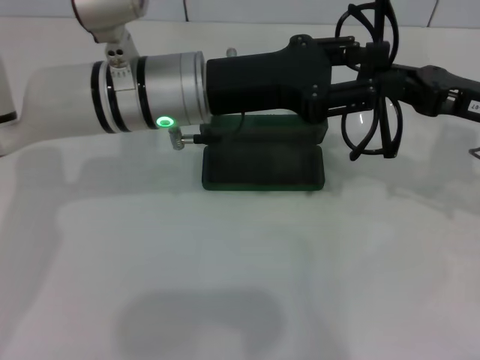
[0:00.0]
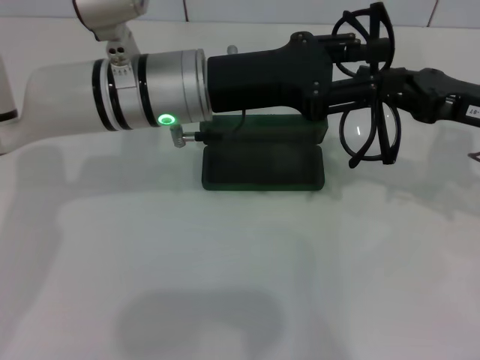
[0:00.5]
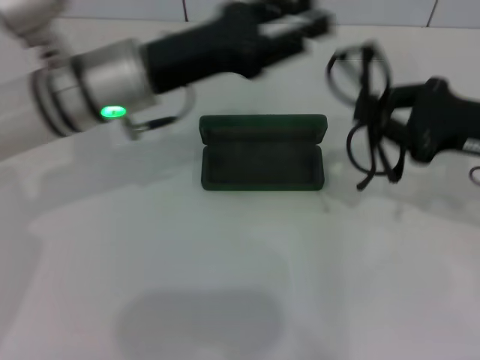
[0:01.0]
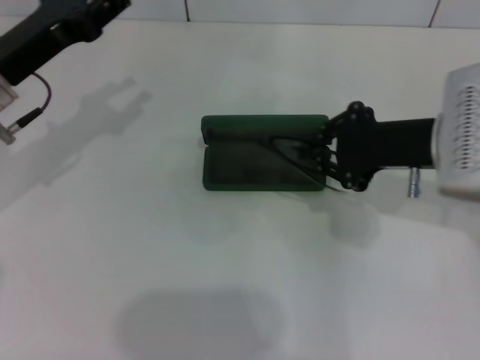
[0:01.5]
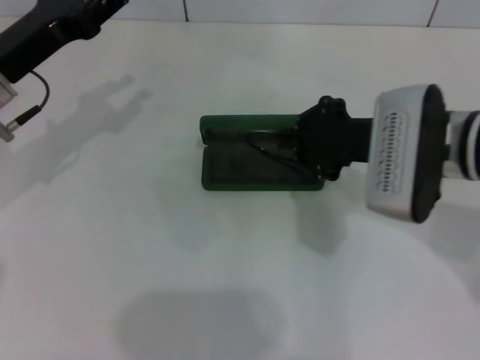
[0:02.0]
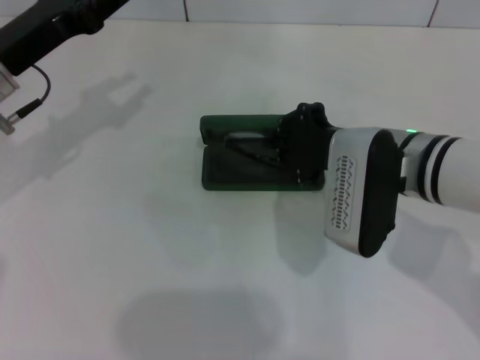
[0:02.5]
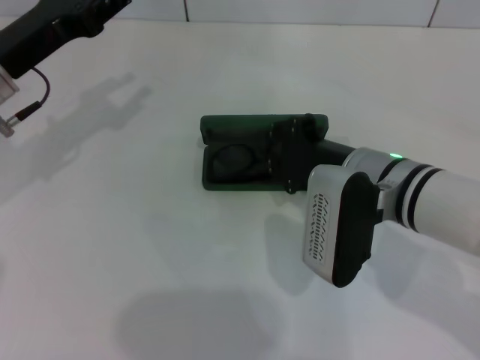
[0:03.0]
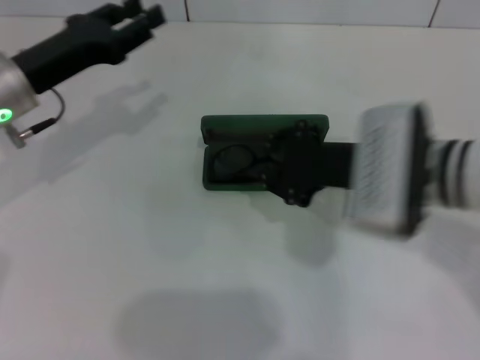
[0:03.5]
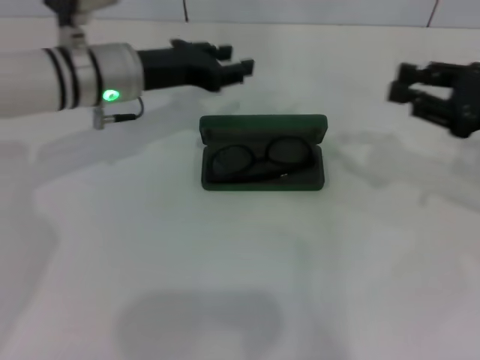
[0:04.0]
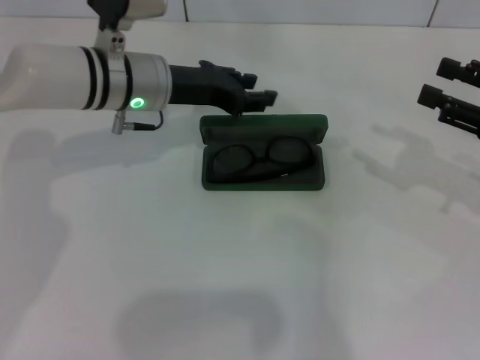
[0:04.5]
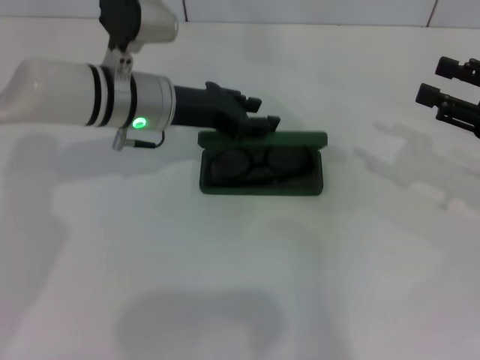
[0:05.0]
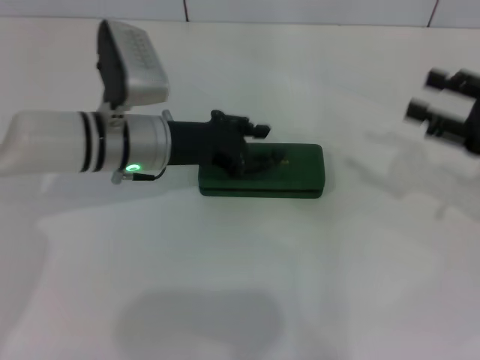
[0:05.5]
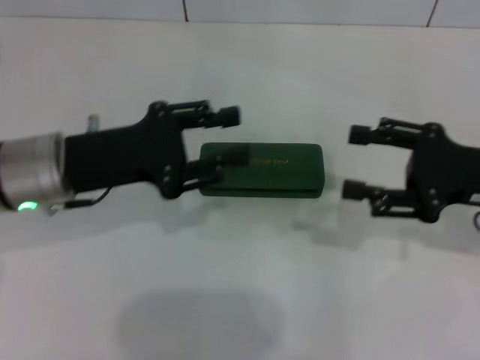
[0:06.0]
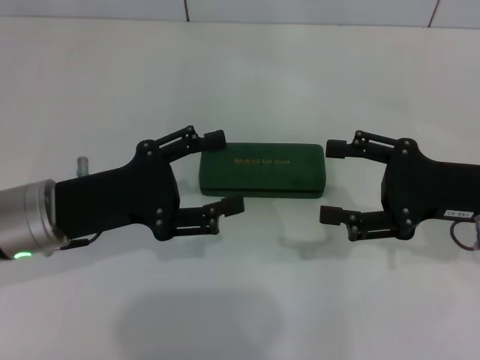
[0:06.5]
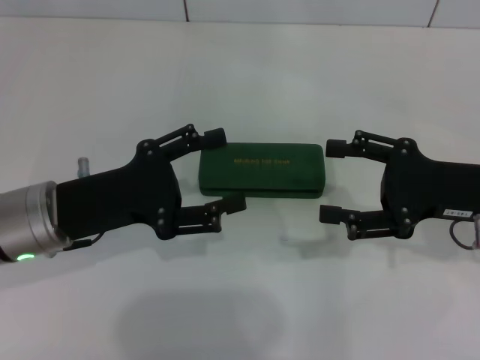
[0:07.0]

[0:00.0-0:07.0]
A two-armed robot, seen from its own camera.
Step, 0:00.0 to 0:03.5: Put the glasses into the case with your right hand.
Step, 0:04.0 to 0:05.0: Close the glasses case with your left hand.
0:00.0 to 0:02.0: Both grippers travel together to the left, roughly 15 cm.
0:03.5 to 0:05.0: The left gripper shifts some 10 cm to the right. The right gripper moves to the right, some 20 cm, and opens.
0:05.0 to 0:07.0: The left gripper travels backward and to the left by some 15 cm, and opens up, while the right gripper heads to the left, covering approximately 10 cm.

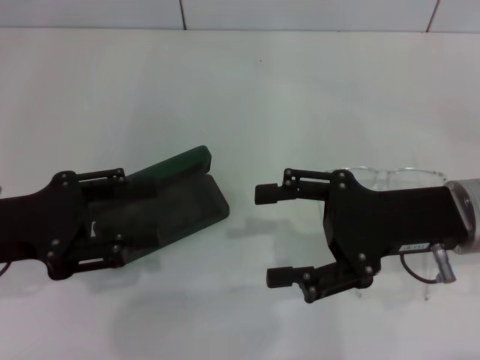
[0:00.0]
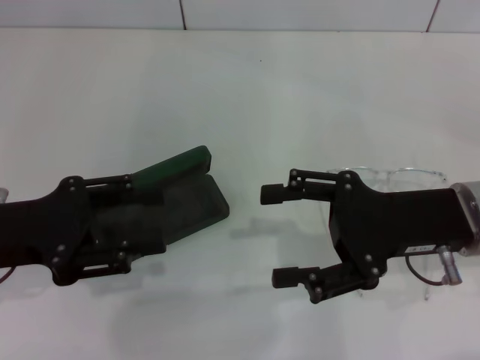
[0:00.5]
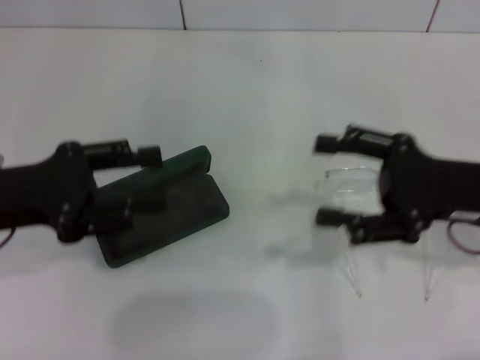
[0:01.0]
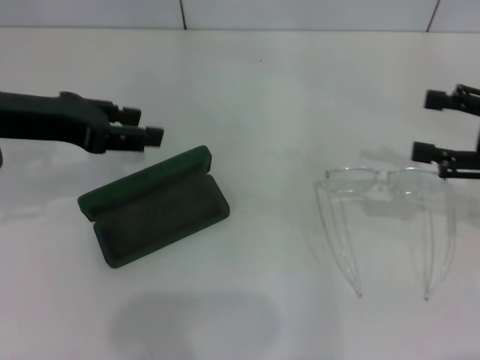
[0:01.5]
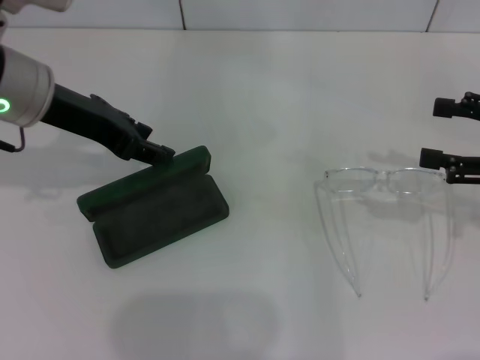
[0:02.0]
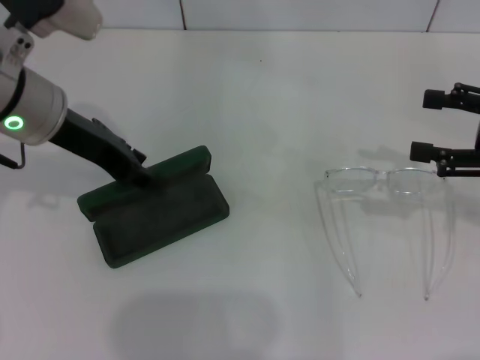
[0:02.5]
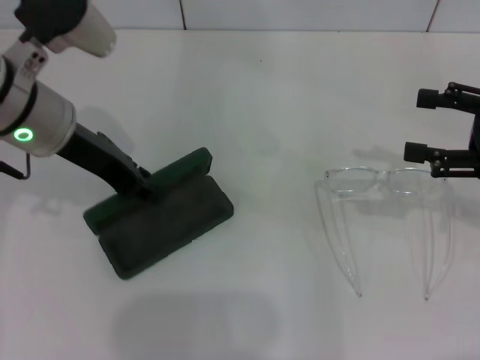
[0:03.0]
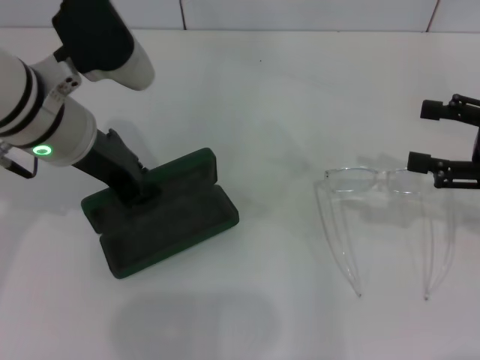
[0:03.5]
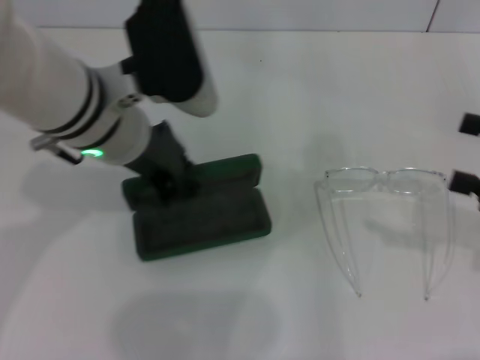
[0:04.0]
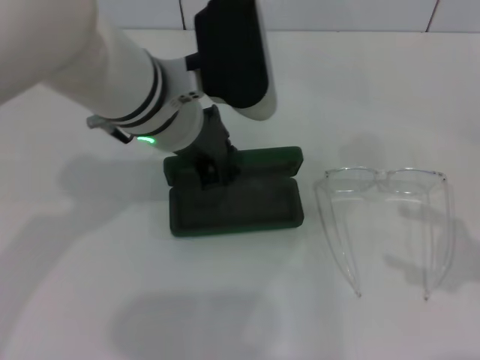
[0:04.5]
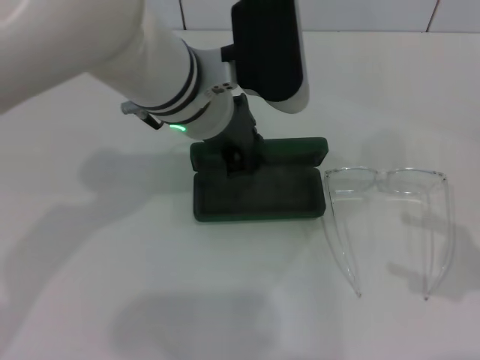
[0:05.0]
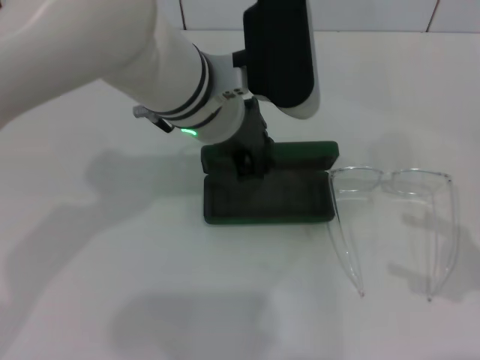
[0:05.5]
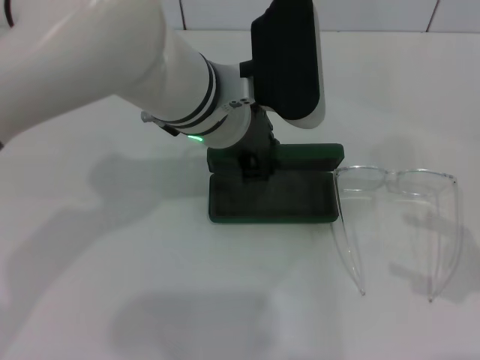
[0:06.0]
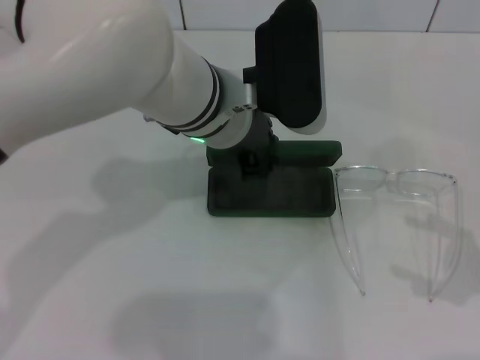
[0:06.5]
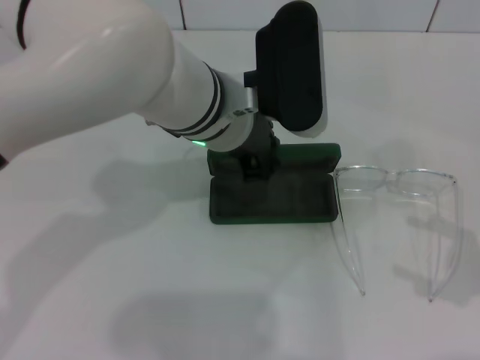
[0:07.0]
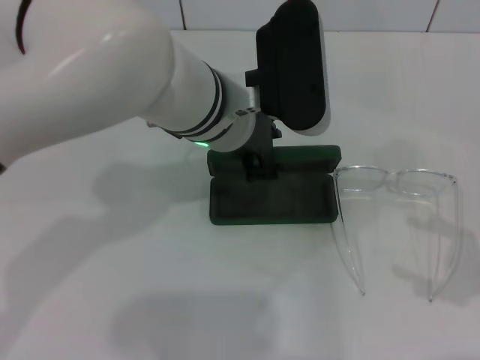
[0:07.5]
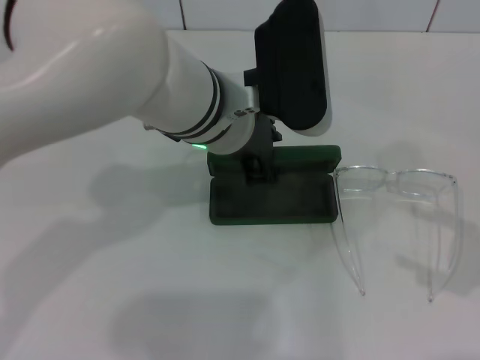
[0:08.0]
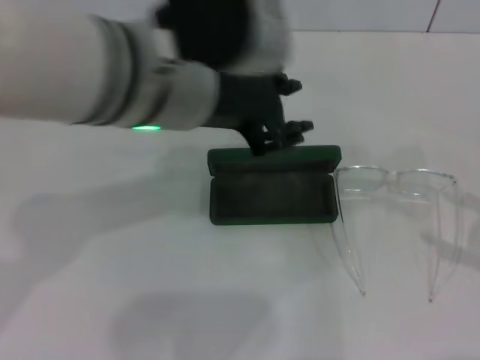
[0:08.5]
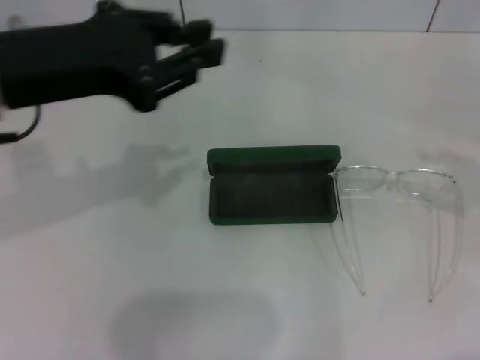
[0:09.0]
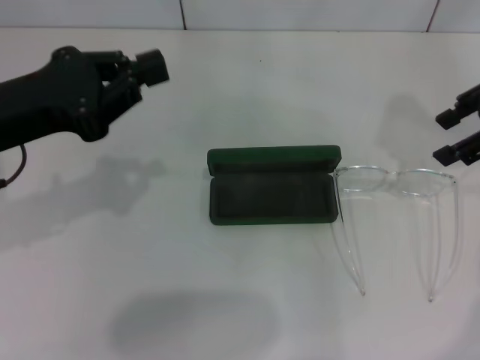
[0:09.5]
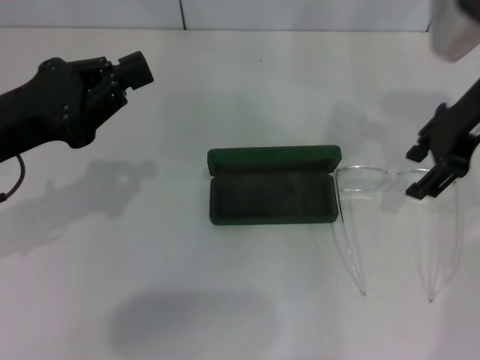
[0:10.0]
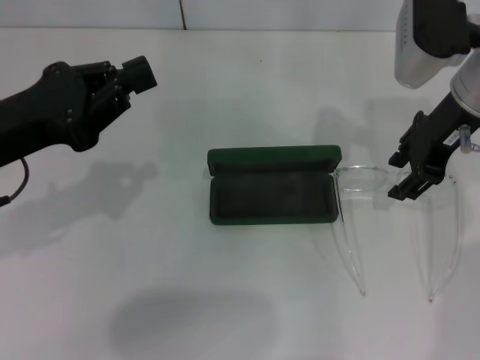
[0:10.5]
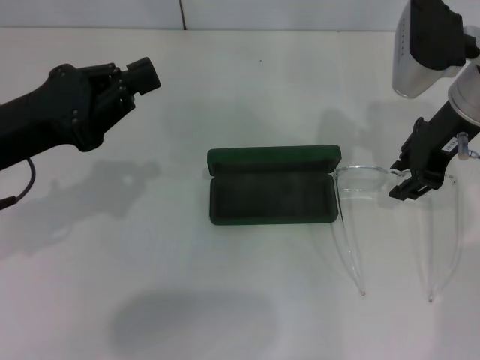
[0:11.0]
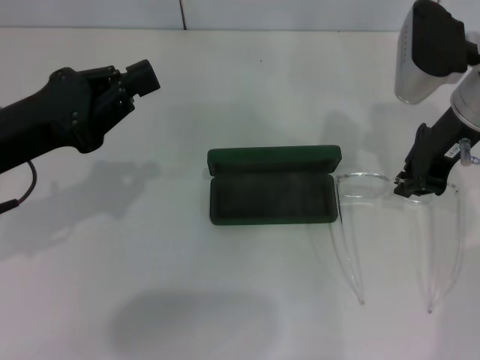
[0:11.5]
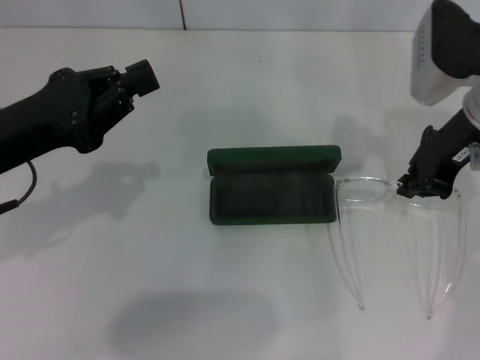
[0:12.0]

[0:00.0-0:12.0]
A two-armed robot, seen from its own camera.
Step, 0:00.0 to 0:02.5: Grab the glasses case with your left hand.
Step, 0:03.0 to 0:07.0: Place the glasses case in the center of the table with your left hand.
Step, 0:07.5 to 0:11.5: Grab the eyeglass frame with your right hand.
0:00.0 to 0:02.0: The right gripper moves to the right, approximately 15 cm, while the left gripper travels forward, to the right and upward by roughly 15 cm.
0:02.0 to 0:04.0: The left gripper is displaced to the right by roughly 10 cm, and closes up.
0:04.0 to 0:06.0: The right gripper goes some 5 cm backward. Meanwhile the left gripper travels to the right by approximately 10 cm.
0:06.0 to 0:08.0: Both grippers stay put.
0:08.0 to 0:10.0: The left gripper goes approximately 20 cm to the left, and closes, while the right gripper shifts approximately 25 cm forward and to the left.
0:10.0 to 0:12.0: The right gripper closes.

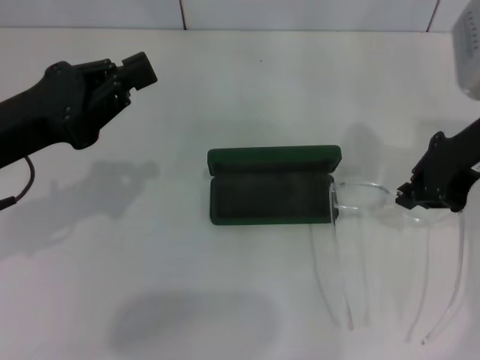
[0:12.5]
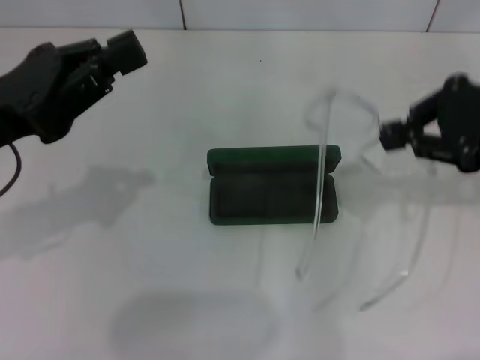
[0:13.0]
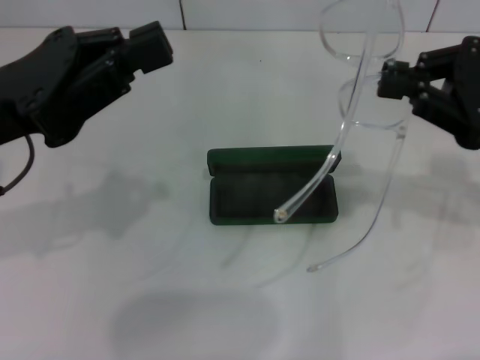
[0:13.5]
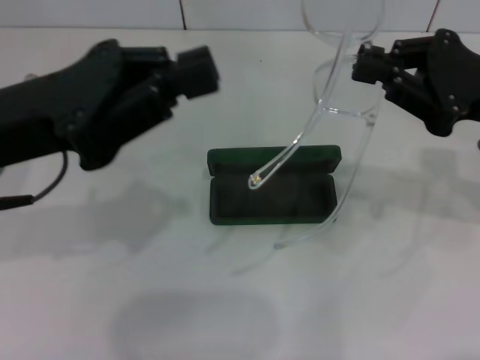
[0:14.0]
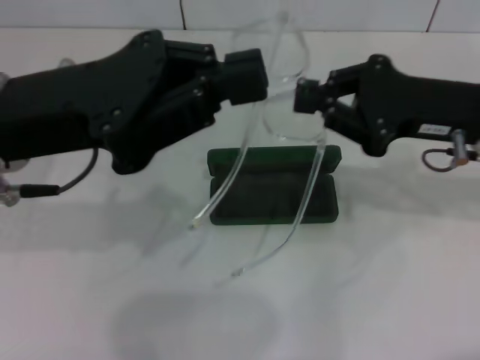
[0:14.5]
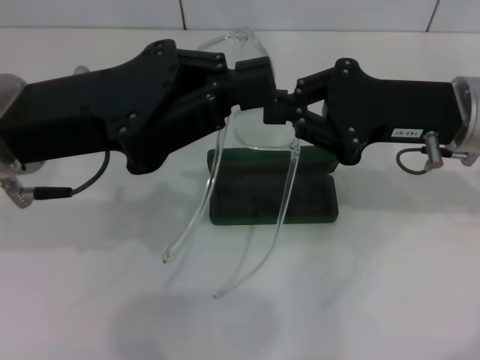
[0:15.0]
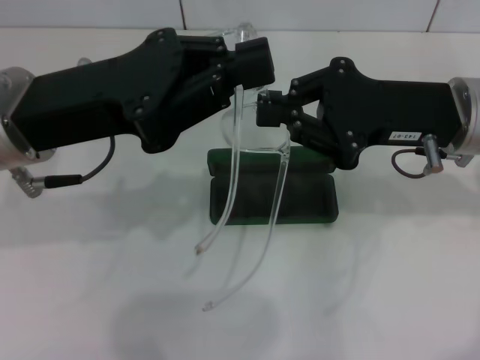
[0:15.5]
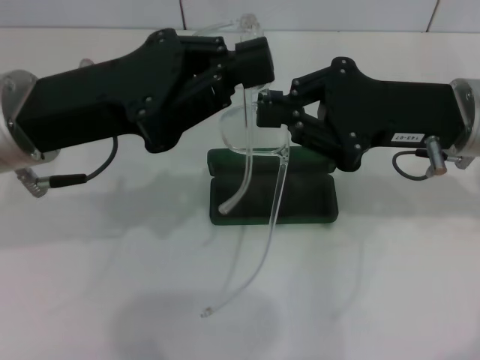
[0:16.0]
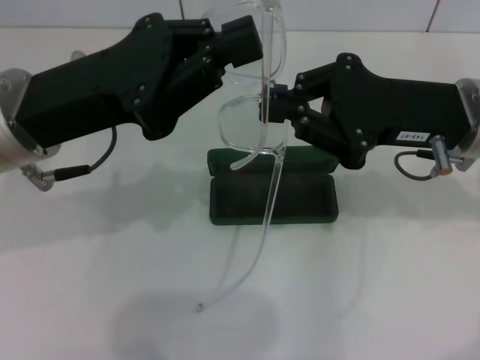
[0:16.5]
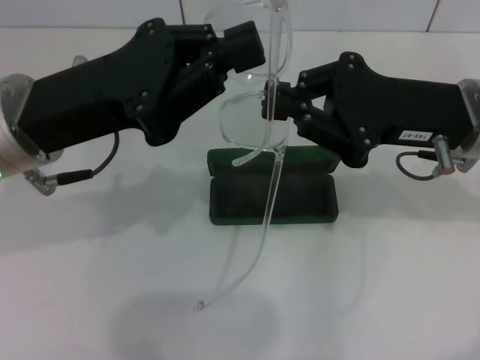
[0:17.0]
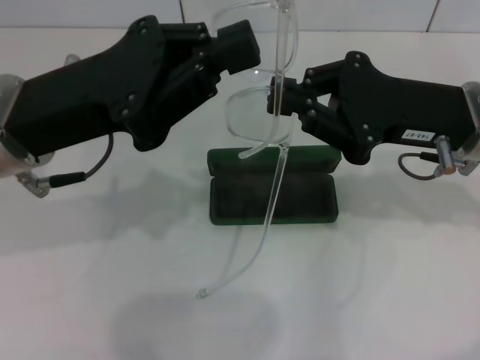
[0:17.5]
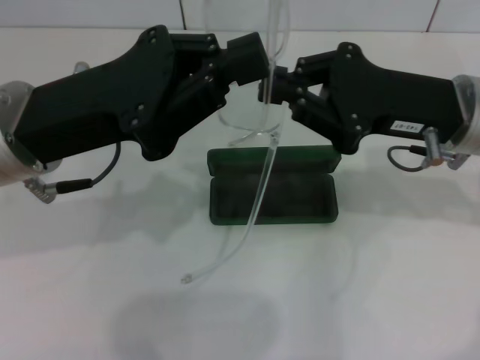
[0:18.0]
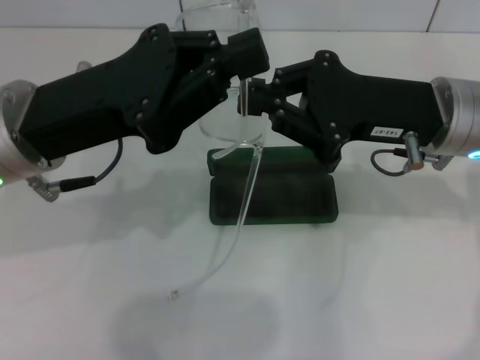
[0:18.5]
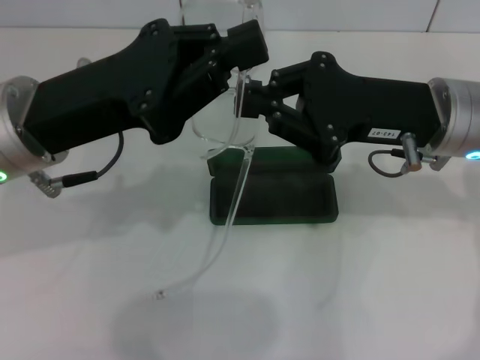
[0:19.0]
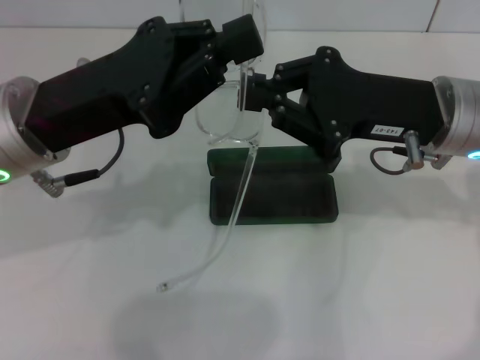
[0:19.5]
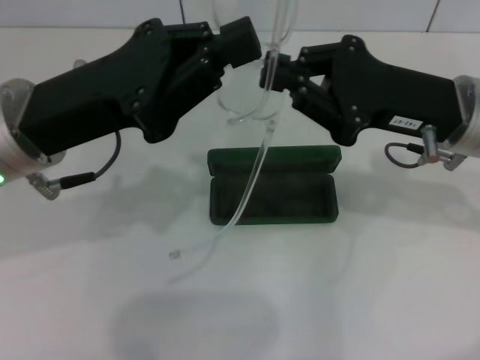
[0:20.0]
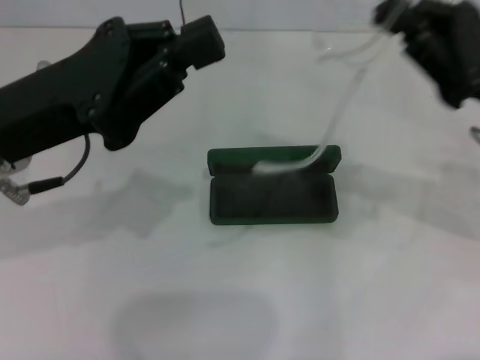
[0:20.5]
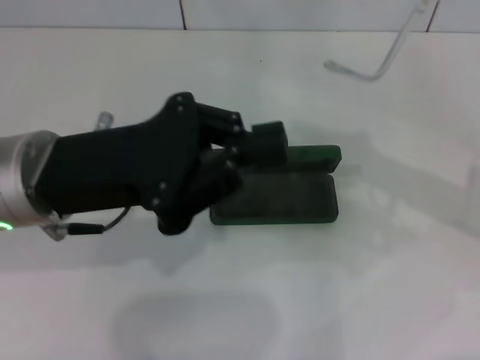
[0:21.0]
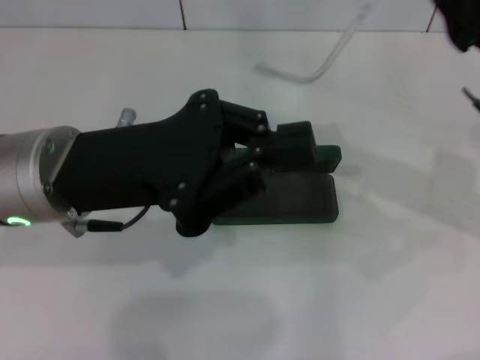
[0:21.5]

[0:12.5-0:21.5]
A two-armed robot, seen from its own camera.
0:12.5 to 0:14.5: The left gripper moves to the right and upward, approximately 10 cm.
0:14.5 to 0:19.5: The grippers move only a little.
0:19.5 to 0:21.5: The right gripper shifts some 5 cm to the right.
